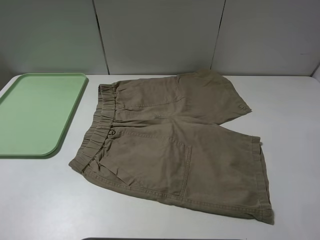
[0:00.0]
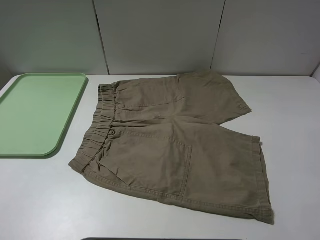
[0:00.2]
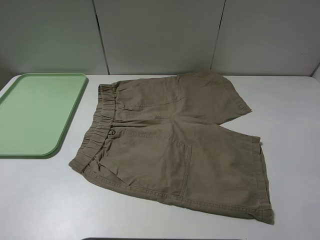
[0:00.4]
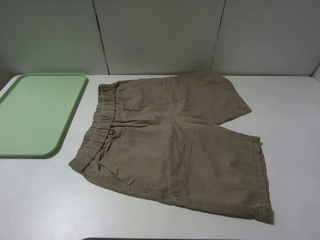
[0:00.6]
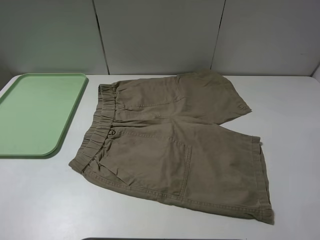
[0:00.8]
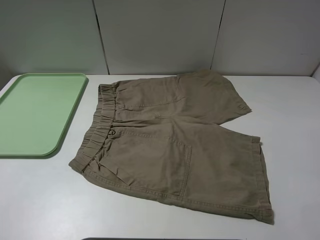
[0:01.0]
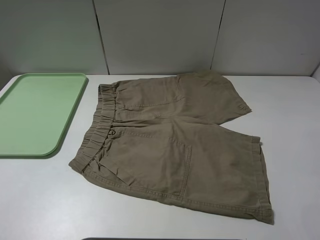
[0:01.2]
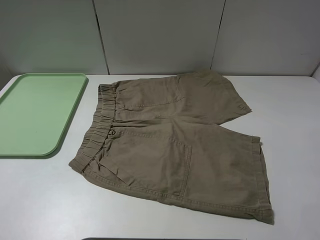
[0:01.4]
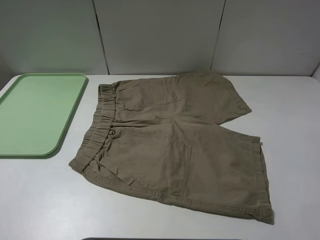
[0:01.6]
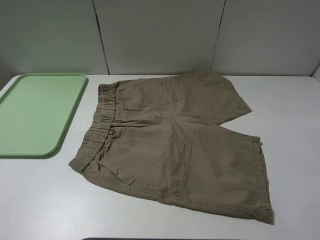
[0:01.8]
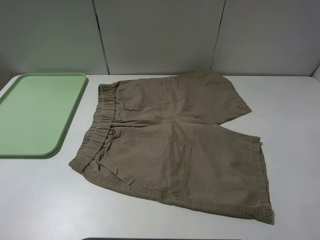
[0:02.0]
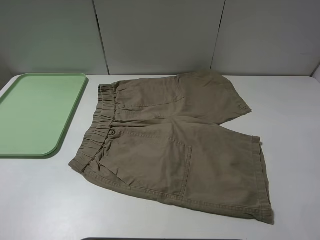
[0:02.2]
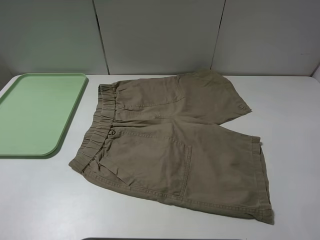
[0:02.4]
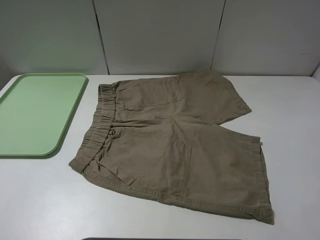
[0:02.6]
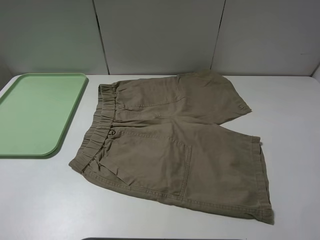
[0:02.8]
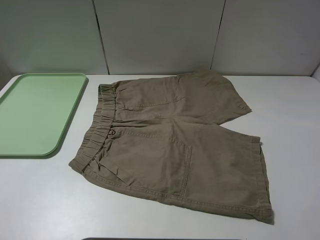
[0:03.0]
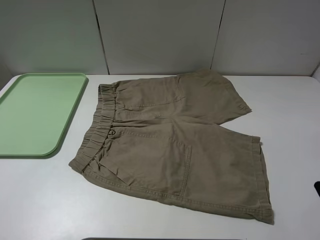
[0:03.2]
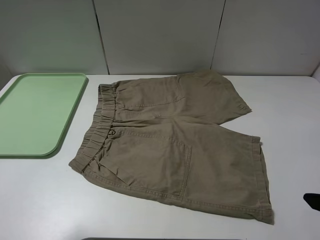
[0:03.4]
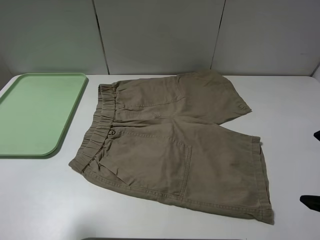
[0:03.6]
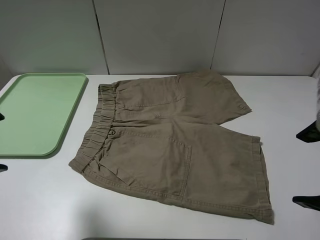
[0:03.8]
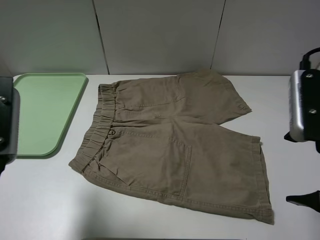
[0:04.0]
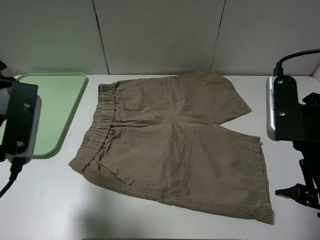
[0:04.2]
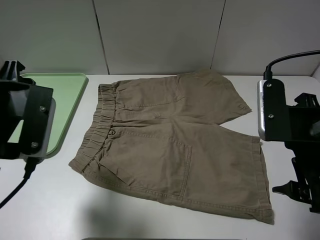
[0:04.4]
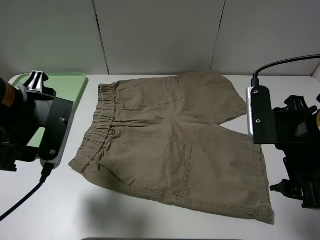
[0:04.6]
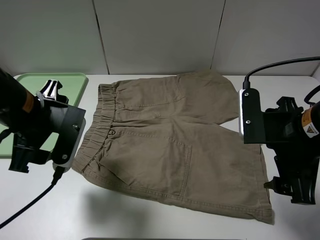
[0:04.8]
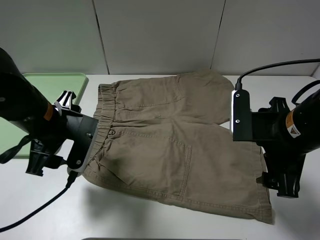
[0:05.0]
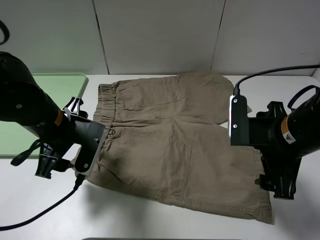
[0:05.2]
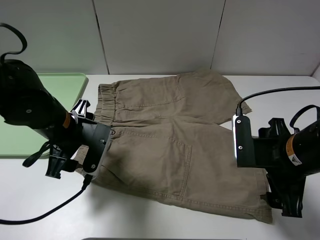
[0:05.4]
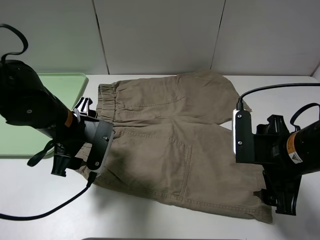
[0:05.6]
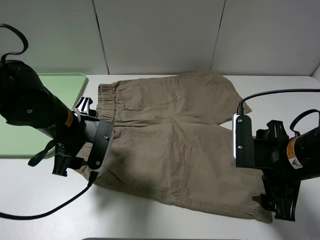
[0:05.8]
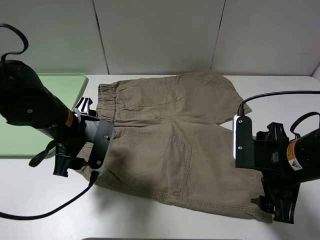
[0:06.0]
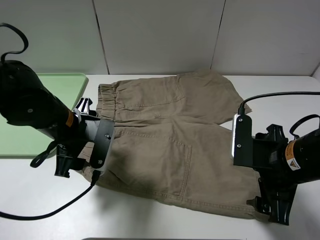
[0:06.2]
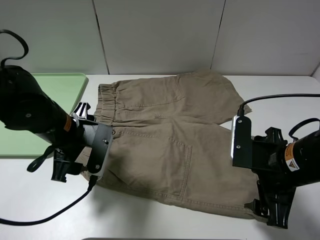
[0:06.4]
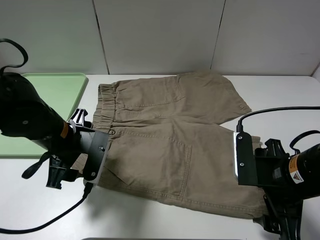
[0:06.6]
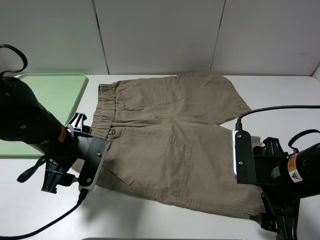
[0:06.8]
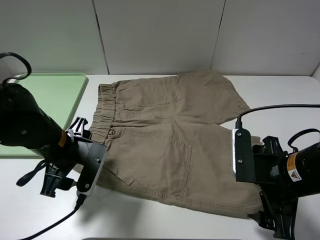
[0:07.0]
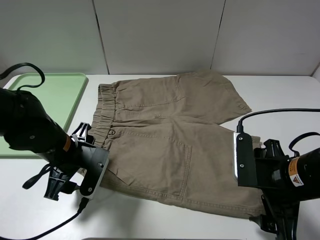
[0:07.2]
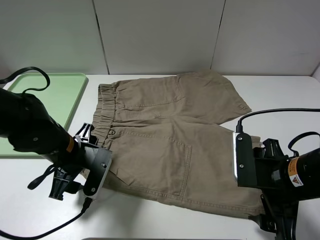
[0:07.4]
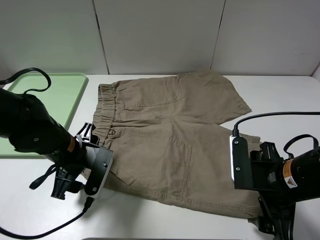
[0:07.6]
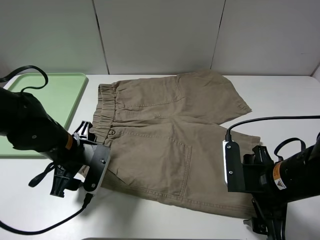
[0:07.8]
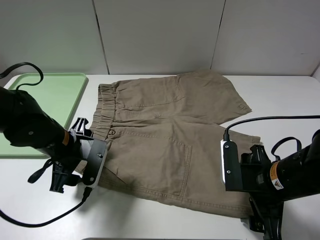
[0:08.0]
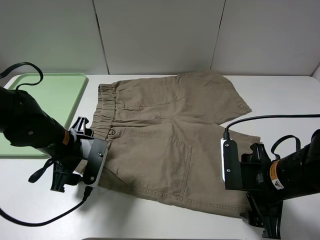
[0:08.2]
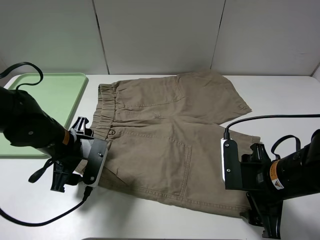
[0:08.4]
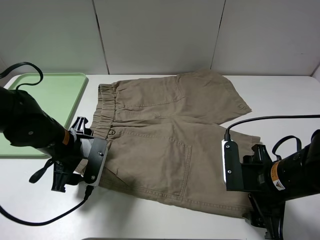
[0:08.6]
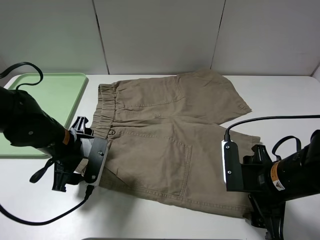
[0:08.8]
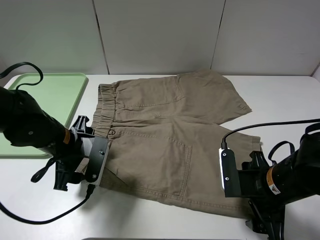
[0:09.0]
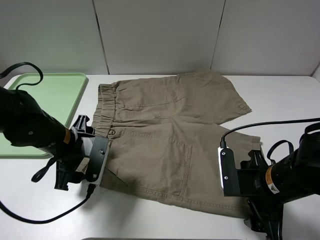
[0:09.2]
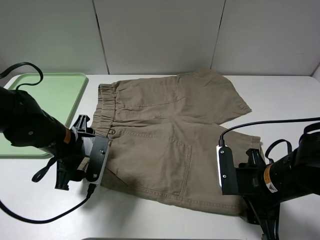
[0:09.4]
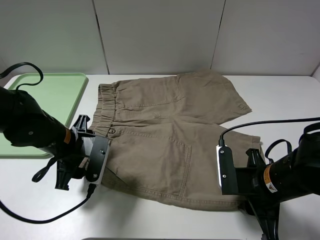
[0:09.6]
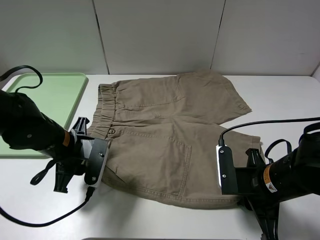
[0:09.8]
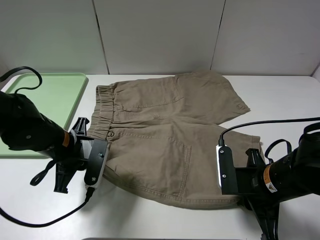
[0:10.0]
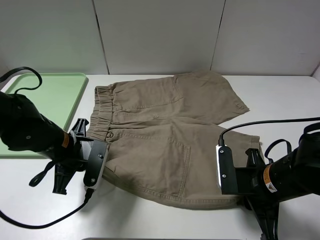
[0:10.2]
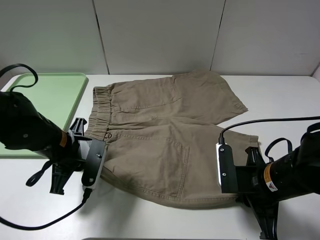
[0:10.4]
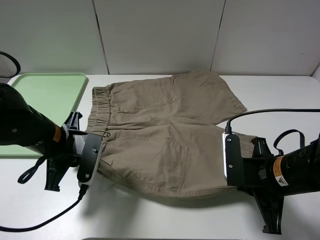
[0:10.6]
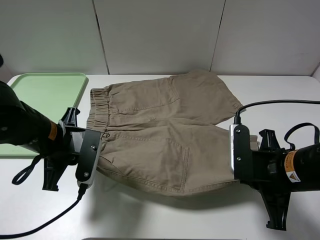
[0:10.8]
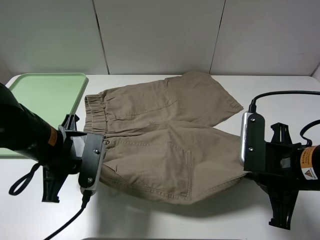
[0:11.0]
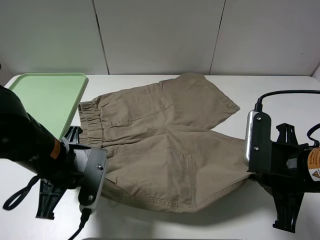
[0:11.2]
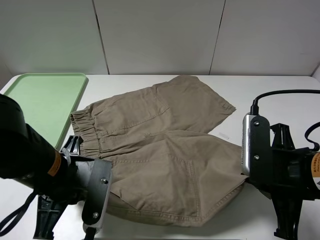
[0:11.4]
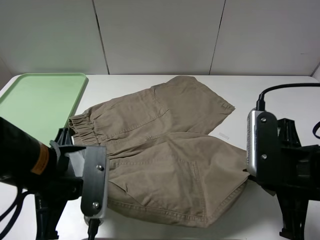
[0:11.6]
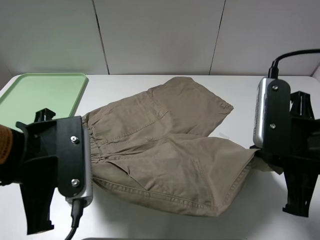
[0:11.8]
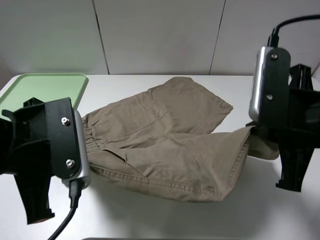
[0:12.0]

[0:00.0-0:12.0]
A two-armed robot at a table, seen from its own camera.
Task of the whole recording: fold the khaki jeans in half with two grippers, then fold them in half again, and use the left claw to place the folded fold khaki jeans on the tray.
Step, 0:00.0 to 0:10.0: Grasp the khaki trousers with the left gripper.
0:00.0 to 0:01.6: Neither gripper changes place.
0:03.0 to 0:04.4: The left gripper heads forward and to the right, covering roughly 20 cm. The right gripper shifts some 15 cm forward, downward and to the left.
0:04.4 to 0:06.0: The left gripper is displaced downward and to the right by some 10 cm. Meanwhile the right gripper heads downward, covering approximately 10 cm.
0:06.0 to 0:07.6: The left gripper changes place by some 5 cm.
0:07.6 to 0:09.0: The grippers move only a little.
0:09.0 to 0:10.4: The right gripper closes, while the left gripper closes.
0:10.4 to 0:12.0: The right gripper is displaced upward by roughly 15 cm. Meanwhile the left gripper travels upward and backward by about 15 cm.

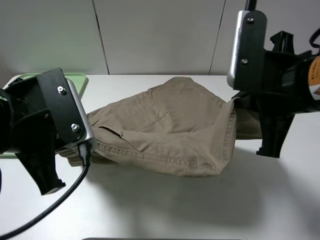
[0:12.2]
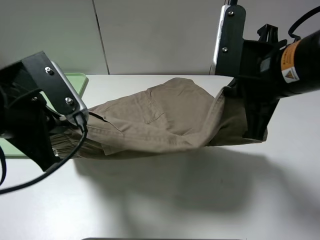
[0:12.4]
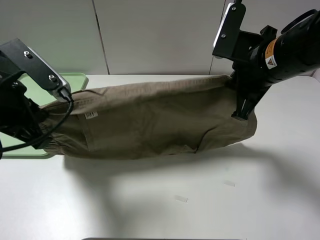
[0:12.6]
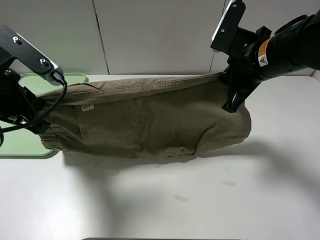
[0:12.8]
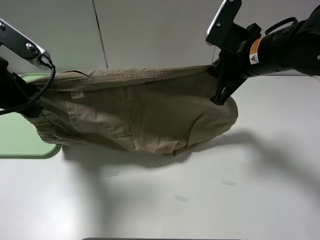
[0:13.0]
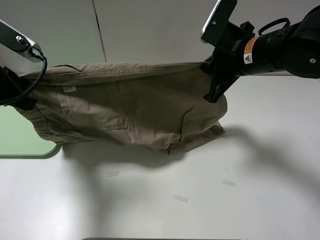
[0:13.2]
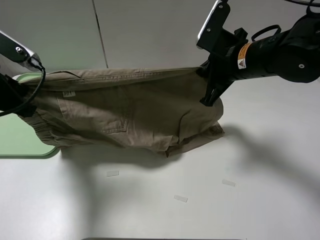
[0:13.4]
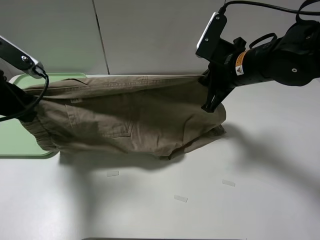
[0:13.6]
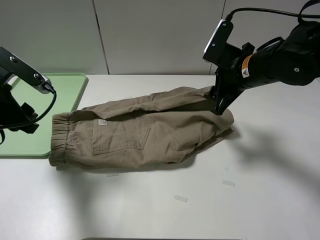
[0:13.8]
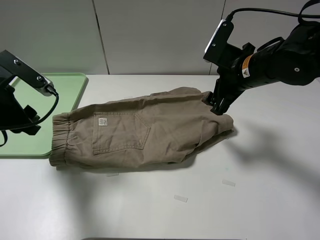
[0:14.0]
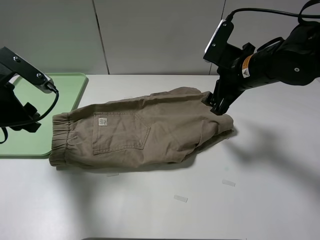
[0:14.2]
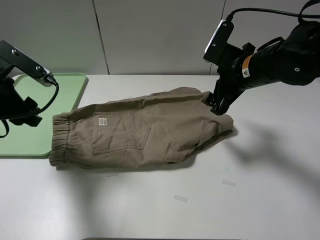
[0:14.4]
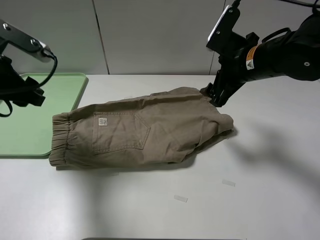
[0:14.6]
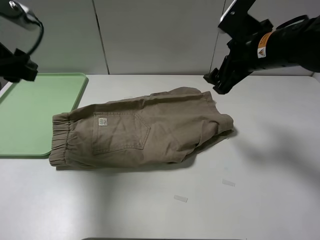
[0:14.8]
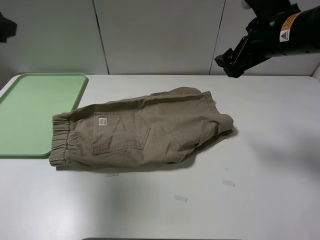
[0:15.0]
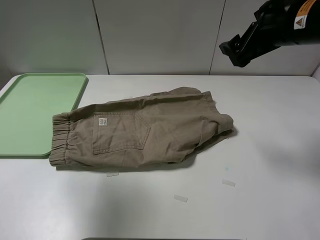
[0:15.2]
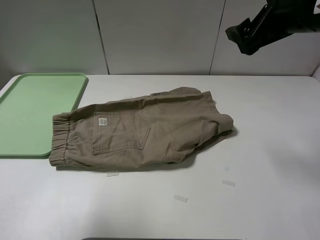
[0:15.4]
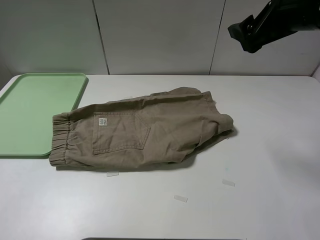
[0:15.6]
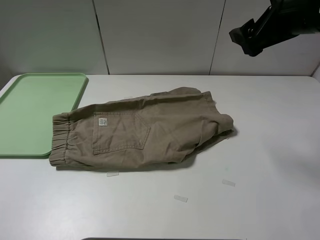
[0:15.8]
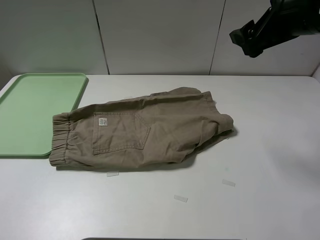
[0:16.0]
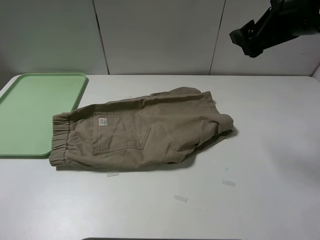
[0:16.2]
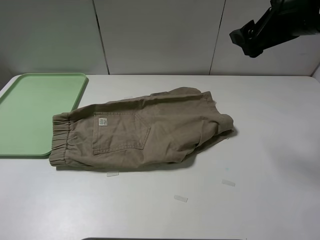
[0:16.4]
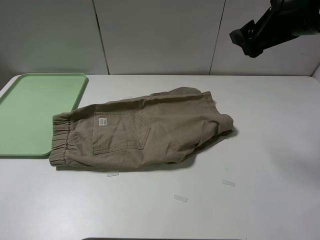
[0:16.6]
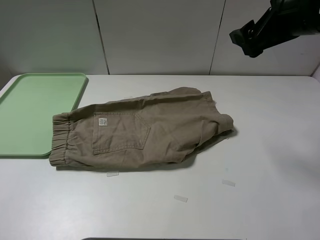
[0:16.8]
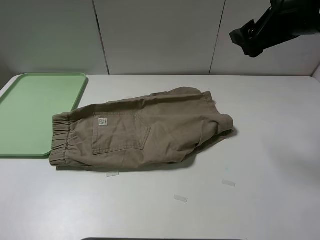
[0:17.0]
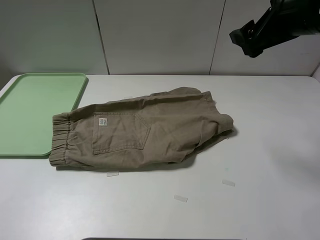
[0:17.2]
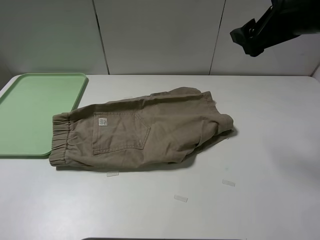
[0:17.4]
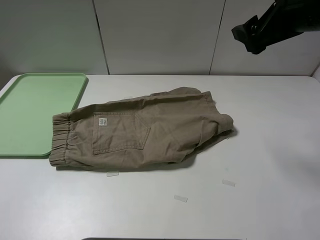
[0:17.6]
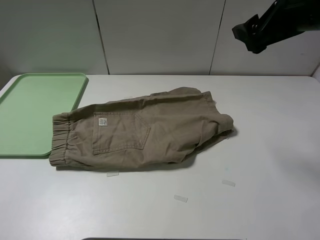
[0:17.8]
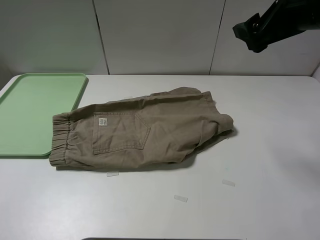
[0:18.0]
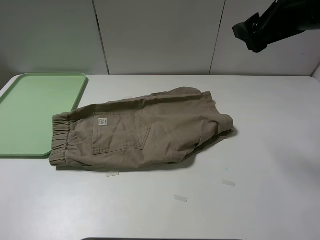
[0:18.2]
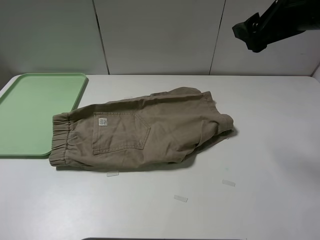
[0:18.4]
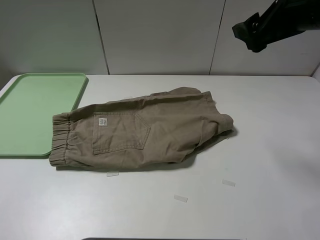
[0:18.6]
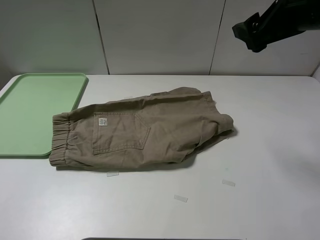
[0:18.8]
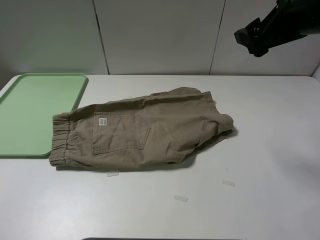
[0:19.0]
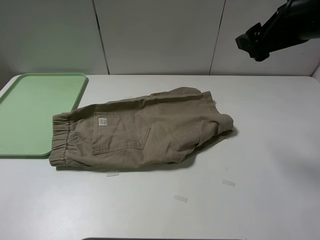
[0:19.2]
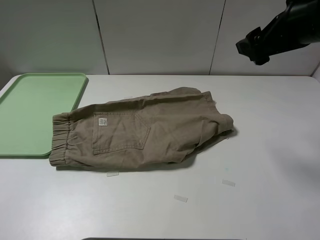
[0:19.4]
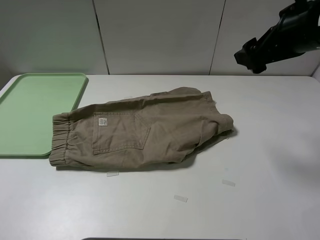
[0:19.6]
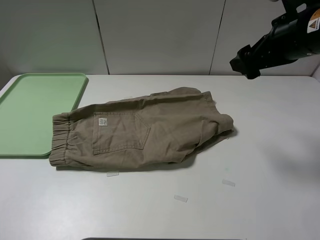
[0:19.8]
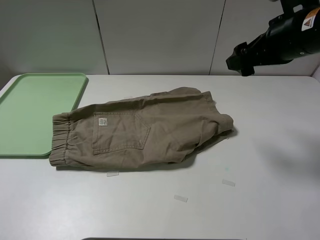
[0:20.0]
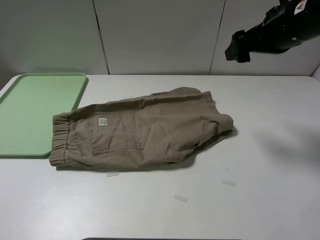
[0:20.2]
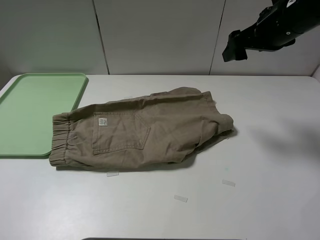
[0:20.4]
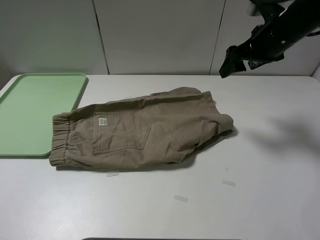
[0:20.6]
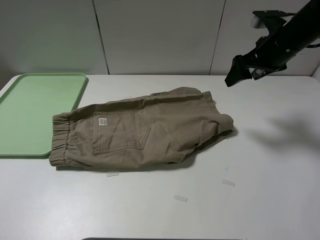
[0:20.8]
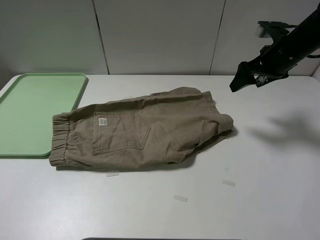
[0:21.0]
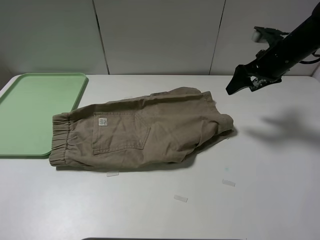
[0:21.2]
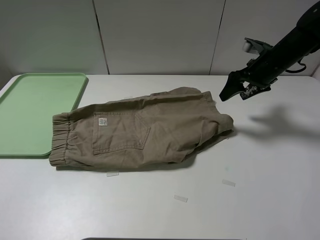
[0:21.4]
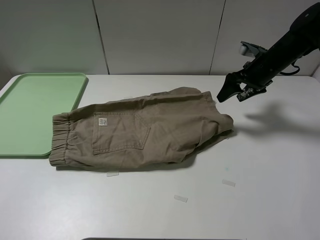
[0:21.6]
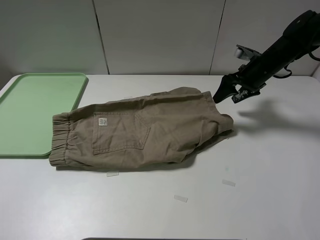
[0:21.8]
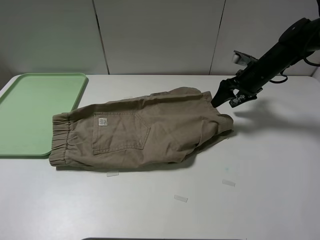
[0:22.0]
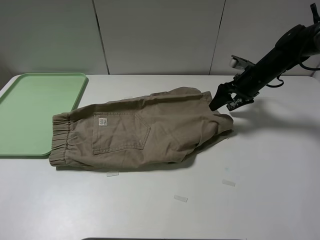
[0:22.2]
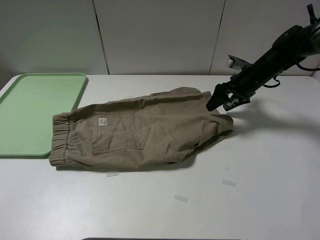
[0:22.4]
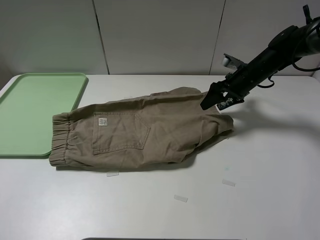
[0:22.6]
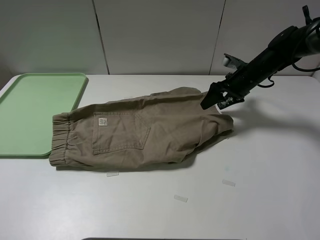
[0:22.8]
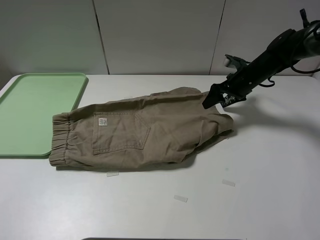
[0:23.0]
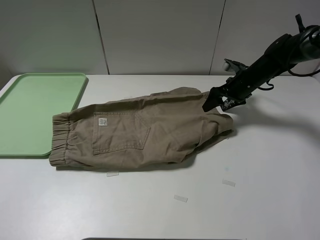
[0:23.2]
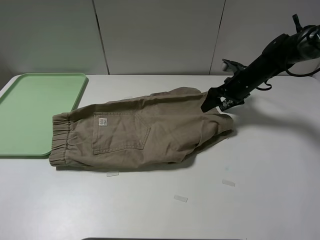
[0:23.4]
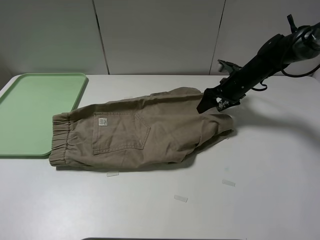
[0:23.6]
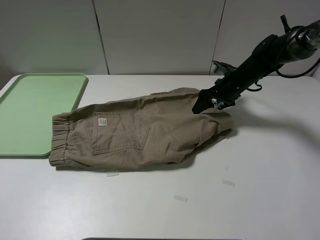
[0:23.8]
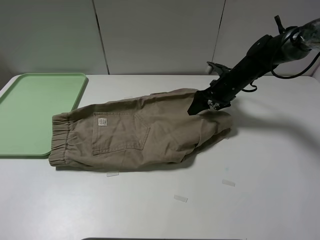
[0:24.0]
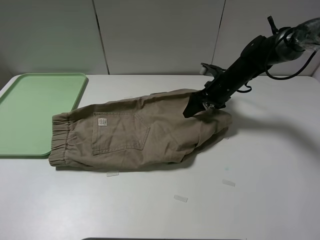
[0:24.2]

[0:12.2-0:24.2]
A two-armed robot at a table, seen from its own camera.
Task of the whole recording: fold the khaki jeans in half with two grippers, then fold them in half again, and use the left claw to place the folded fold khaki jeans on the tray.
0:12.2 to 0:13.8: The left gripper heads to the left and forward, covering roughly 15 cm, and opens up; the right gripper goes some 15 cm forward and downward, and opens up.
0:13.8 to 0:15.2: The right gripper shifts some 10 cm upward, while the left gripper moves upward, some 15 cm.
0:15.2 to 0:16.6: The left gripper moves backward, roughly 20 cm.
0:18.2 to 0:19.8: The grippers move only a little.
0:19.8 to 0:21.2: The right gripper travels forward, downward and to the right by about 15 cm.
0:21.2 to 0:22.6: The right gripper moves downward, some 10 cm.
0:22.6 to 0:24.2: The right gripper goes about 5 cm to the left.
